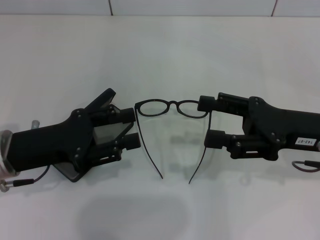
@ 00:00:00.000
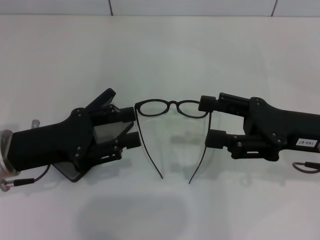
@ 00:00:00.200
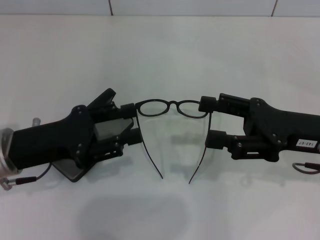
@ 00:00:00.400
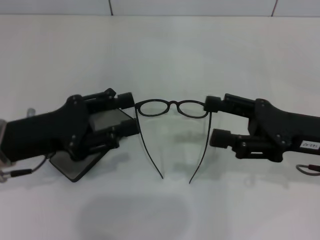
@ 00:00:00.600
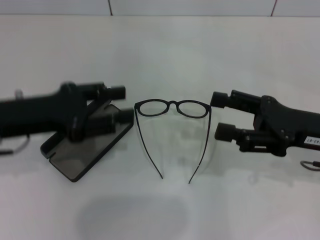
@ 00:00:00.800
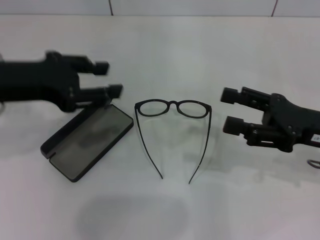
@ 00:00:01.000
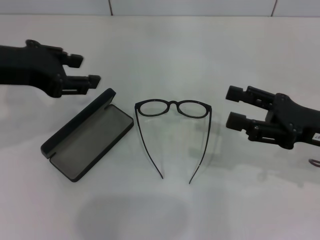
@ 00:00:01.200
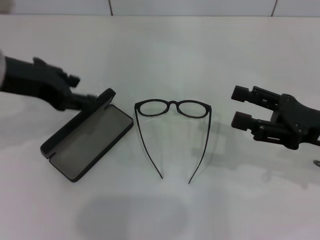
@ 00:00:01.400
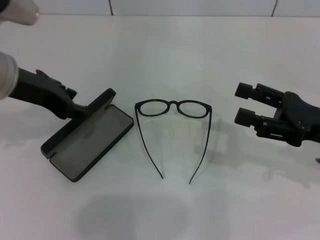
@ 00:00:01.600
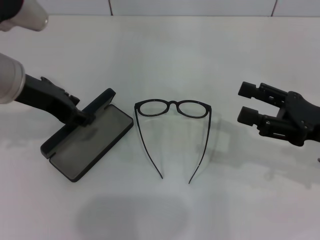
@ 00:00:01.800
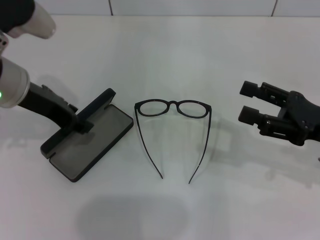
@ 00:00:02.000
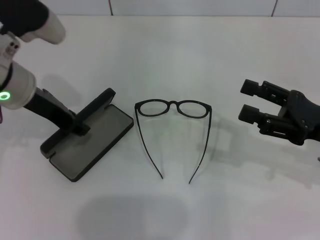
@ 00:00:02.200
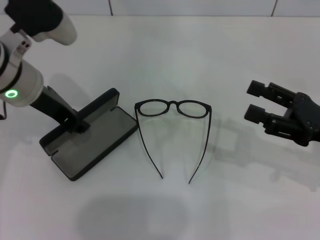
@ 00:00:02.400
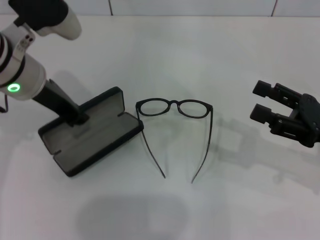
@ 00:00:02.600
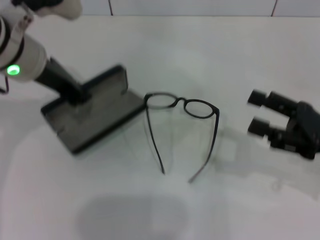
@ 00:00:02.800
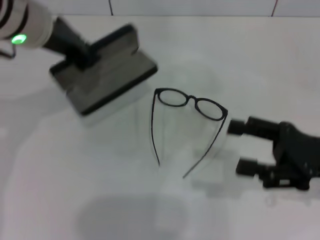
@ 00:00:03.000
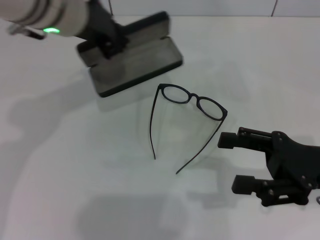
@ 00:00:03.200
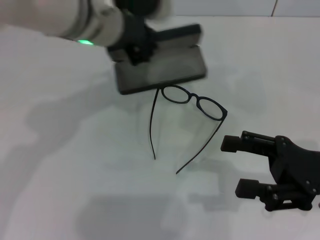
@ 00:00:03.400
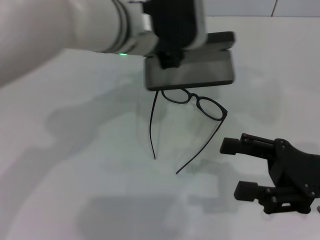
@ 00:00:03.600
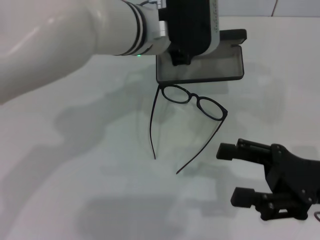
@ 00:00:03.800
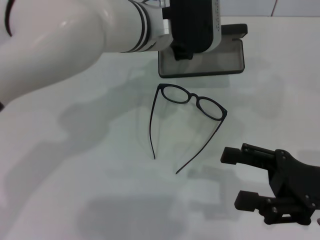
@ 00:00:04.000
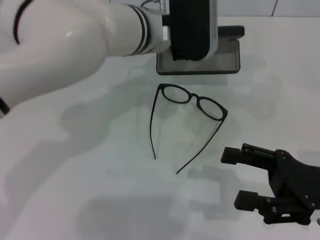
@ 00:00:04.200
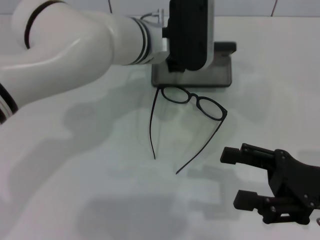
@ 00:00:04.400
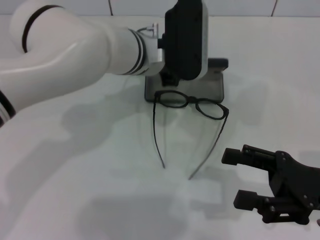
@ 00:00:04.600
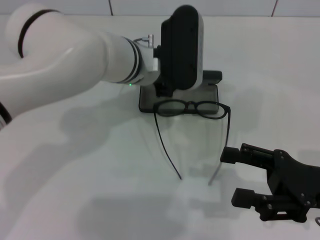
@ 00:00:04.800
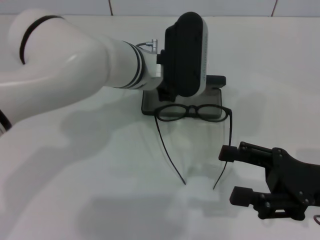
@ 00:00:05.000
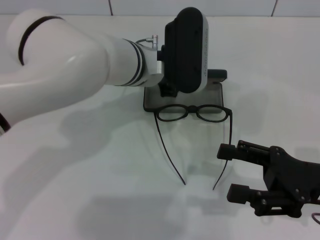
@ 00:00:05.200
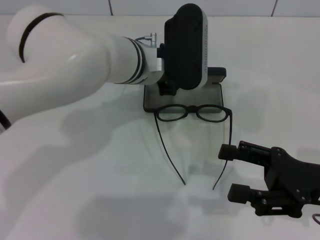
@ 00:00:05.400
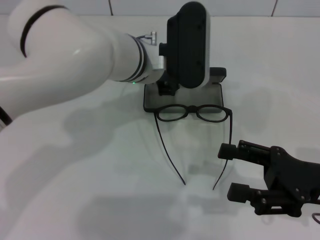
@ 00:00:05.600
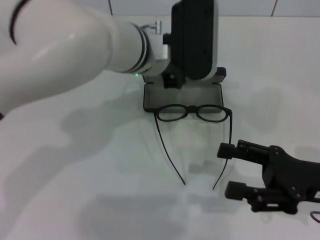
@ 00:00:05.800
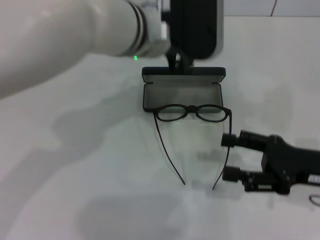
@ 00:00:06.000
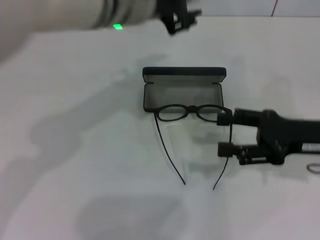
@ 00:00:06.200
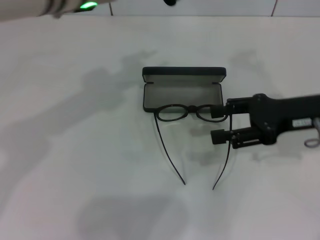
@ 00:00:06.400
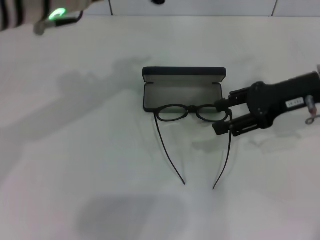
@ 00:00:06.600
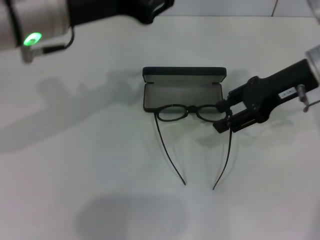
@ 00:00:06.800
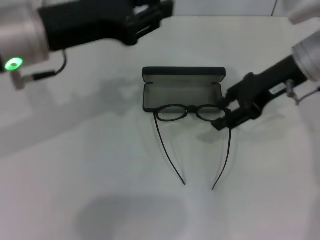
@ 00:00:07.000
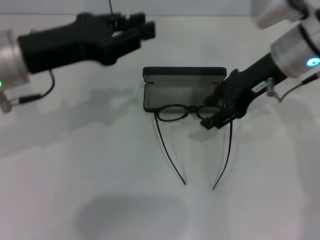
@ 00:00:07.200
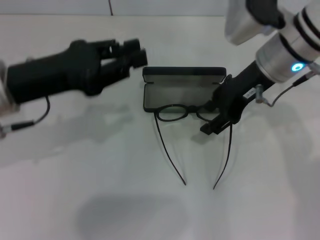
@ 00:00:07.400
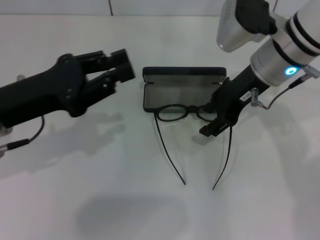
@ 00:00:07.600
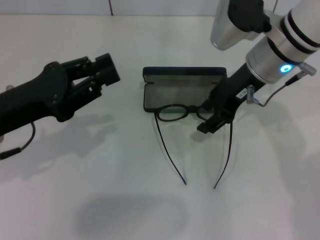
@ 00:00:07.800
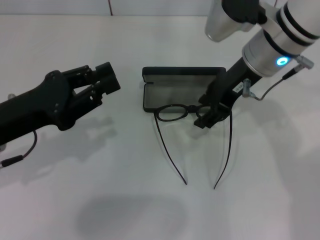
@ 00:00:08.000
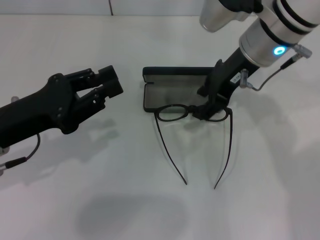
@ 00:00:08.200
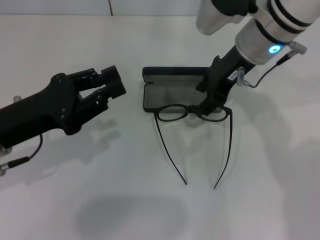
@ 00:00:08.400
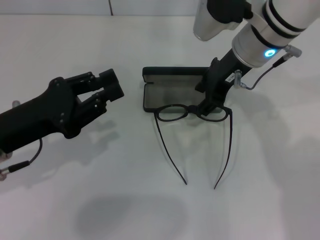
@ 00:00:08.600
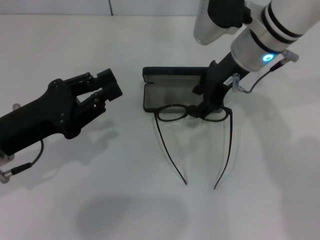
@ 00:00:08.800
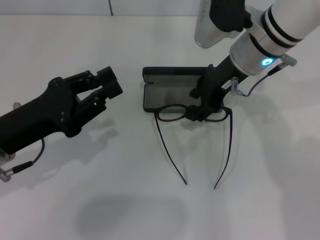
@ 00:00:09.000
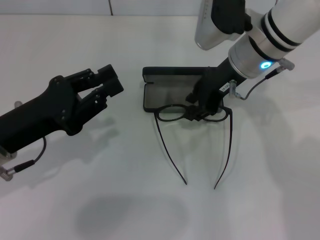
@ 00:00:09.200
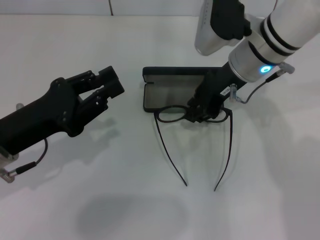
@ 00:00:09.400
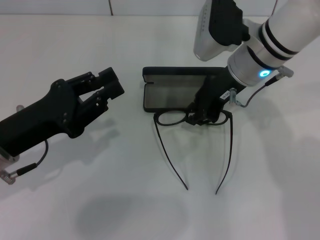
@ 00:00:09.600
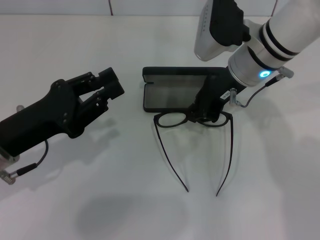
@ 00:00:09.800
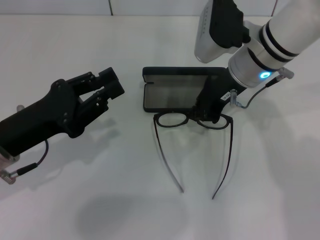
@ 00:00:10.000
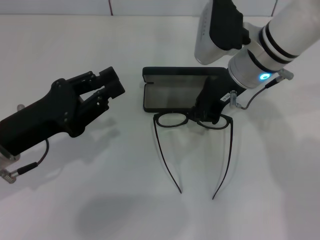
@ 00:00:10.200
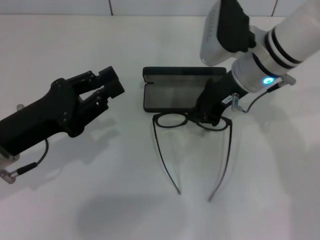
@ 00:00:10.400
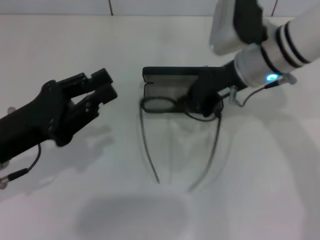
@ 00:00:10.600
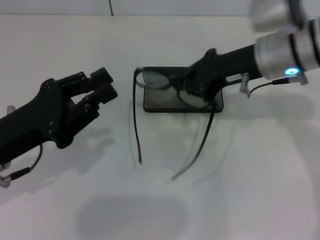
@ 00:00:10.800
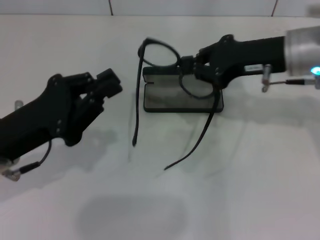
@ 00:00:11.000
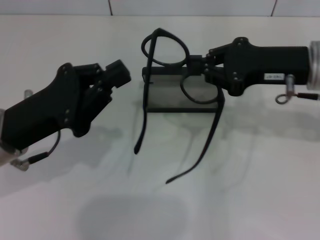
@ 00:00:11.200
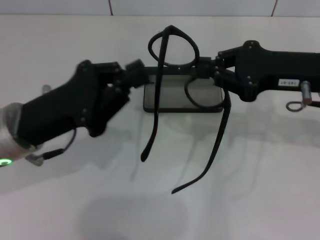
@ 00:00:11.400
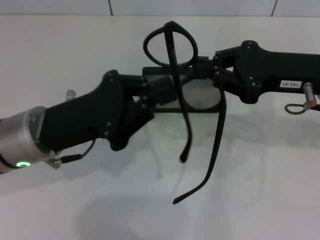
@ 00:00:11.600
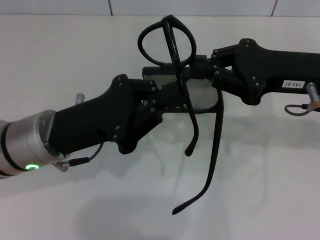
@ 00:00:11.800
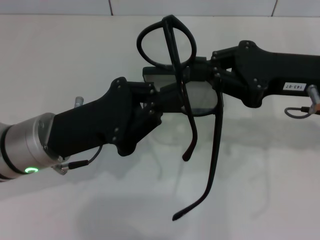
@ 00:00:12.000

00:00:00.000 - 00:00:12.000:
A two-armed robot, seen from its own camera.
Step, 00:00:00.000 - 00:00:02.600: Grab the glasses case with your left hand.
Step, 00:00:02.800 - 00:00:05.600: Place the glasses case in the center of the table with your left hand.
Step, 00:00:05.800 - 00:00:10.200: Grab the eyeglass frame with your right hand.
00:00:00.000 - 00:00:01.600: The left gripper moves upward and forward, approximately 15 cm.
00:00:01.600 - 00:00:03.000: The left gripper moves roughly 5 cm, and closes up.
00:00:03.000 - 00:00:04.400: The left gripper moves to the right and downward, some 15 cm.
00:00:04.400 - 00:00:06.000: The left gripper shifts roughly 5 cm upward.
00:00:06.000 - 00:00:07.600: The left gripper is displaced to the left and backward by approximately 20 cm; the right gripper shifts about 20 cm forward, to the left and upward.
00:00:09.000 - 00:00:10.400: The right gripper closes its fingers.
00:00:10.400 - 00:00:12.000: The right gripper moves to the right and backward, about 15 cm. The left gripper is displaced to the right by roughly 5 cm.

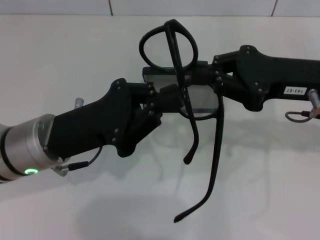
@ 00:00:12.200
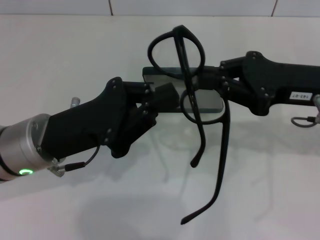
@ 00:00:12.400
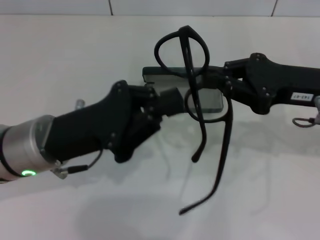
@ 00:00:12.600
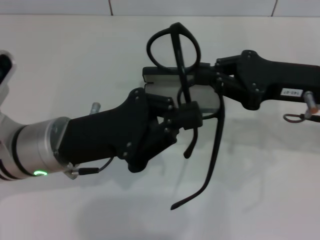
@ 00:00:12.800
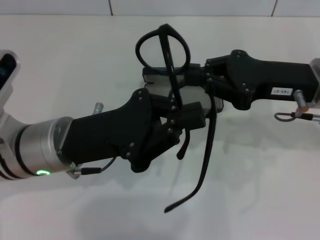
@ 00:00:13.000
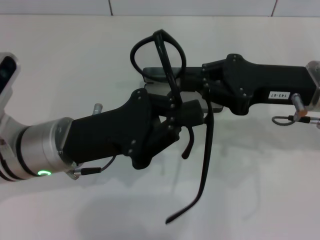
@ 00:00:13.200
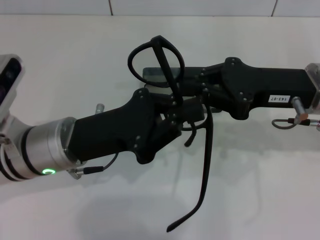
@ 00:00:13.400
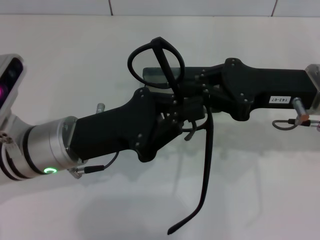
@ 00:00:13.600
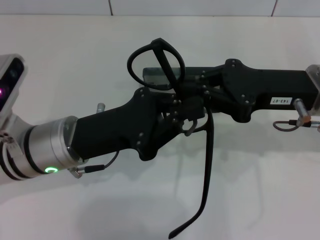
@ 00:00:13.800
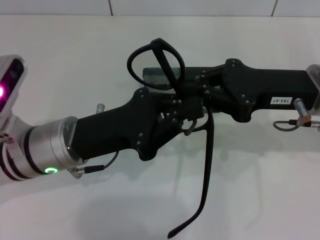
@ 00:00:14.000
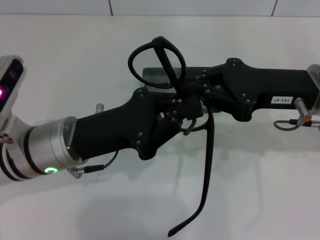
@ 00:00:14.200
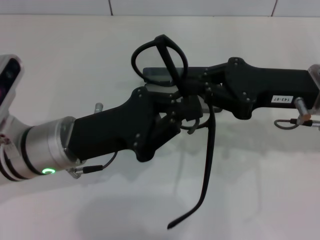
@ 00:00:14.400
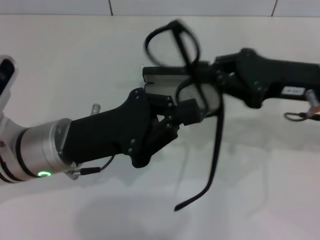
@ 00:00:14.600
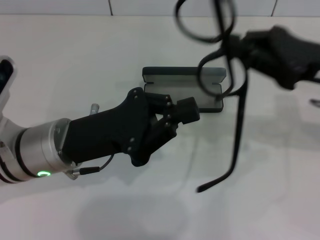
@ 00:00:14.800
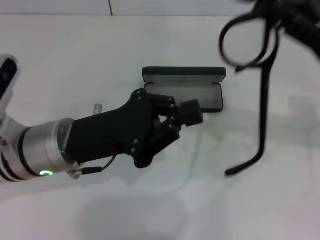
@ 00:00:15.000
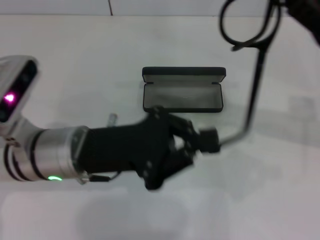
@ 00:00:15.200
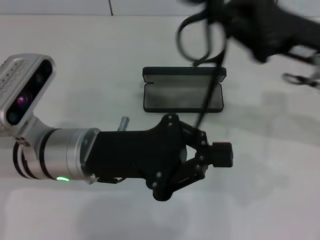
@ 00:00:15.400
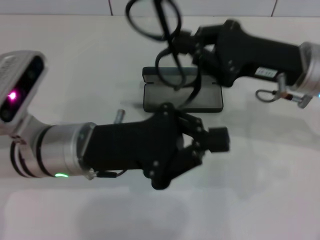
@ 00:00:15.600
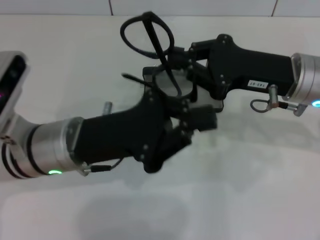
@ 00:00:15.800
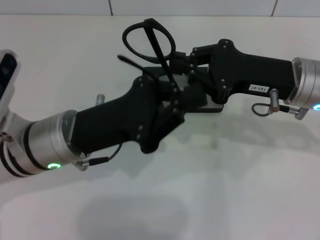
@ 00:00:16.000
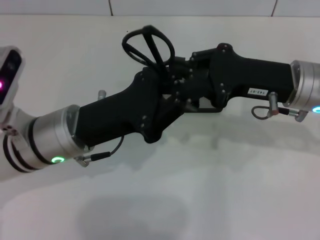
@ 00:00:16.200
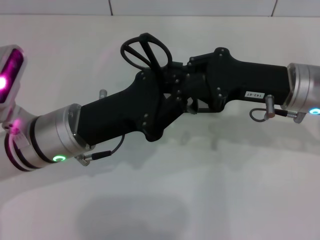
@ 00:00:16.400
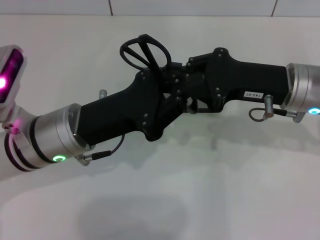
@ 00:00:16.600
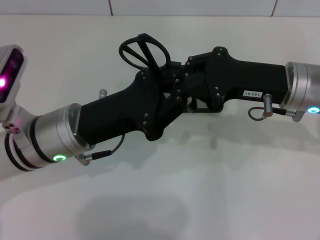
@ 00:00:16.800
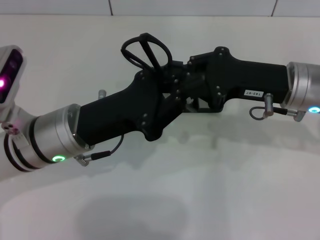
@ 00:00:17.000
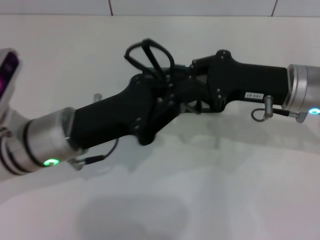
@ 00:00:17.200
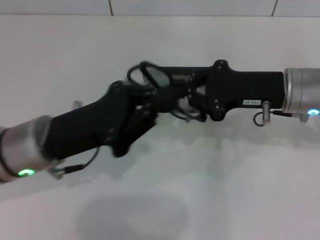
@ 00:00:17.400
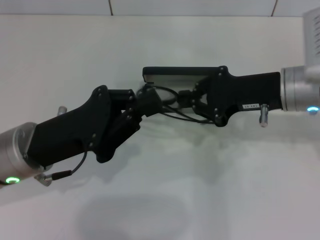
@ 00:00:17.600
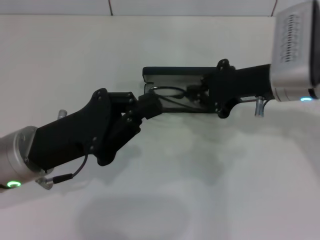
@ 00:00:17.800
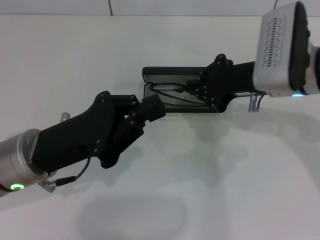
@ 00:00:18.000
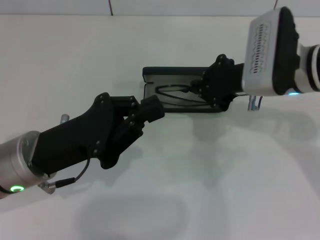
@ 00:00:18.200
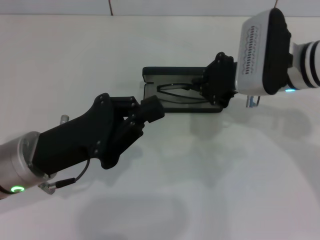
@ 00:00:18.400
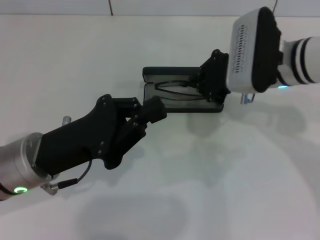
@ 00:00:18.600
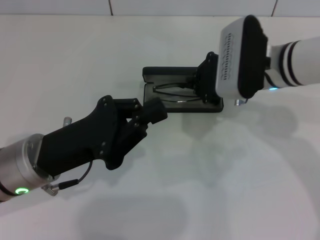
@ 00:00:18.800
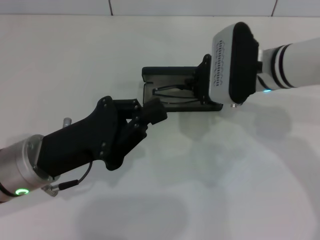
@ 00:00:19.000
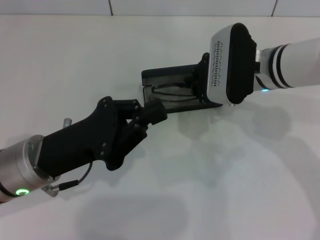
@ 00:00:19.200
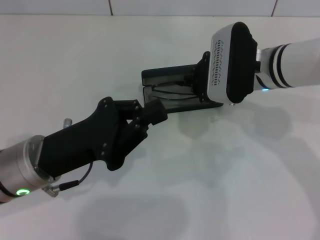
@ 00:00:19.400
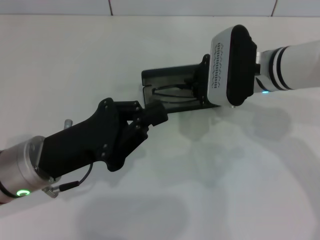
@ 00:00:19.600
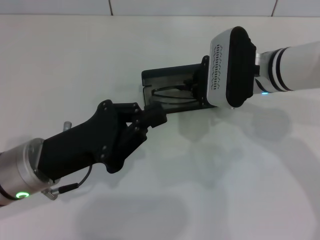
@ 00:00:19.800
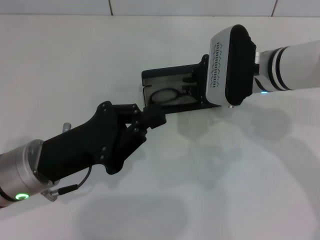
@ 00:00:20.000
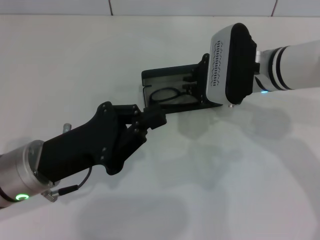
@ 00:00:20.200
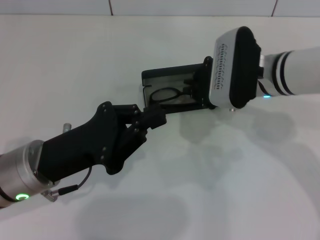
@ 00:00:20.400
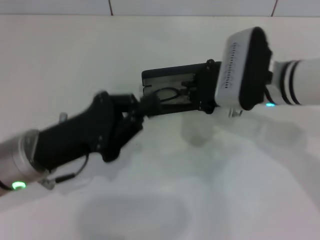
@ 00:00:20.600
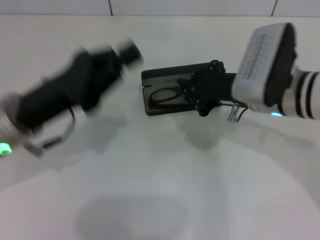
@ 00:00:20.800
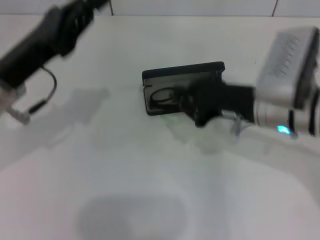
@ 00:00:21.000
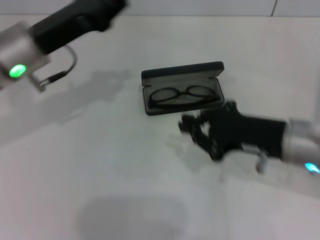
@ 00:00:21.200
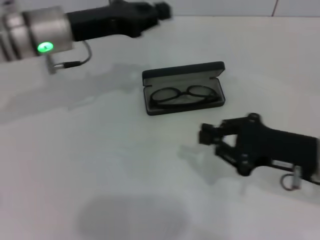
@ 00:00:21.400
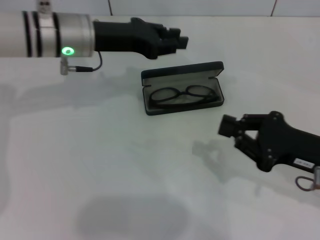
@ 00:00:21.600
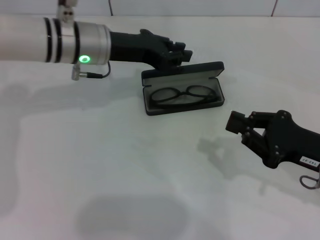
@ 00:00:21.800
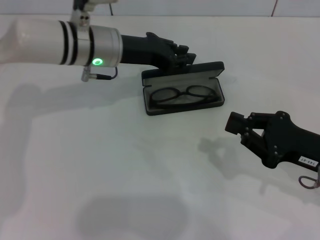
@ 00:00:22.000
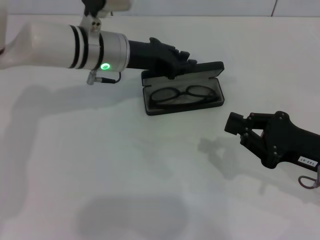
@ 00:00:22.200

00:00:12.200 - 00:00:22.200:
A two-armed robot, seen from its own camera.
Step, 00:00:12.200 - 00:00:17.000: Lift the glasses with your right hand.
Step, 00:00:17.200 - 00:00:19.800: Put the glasses into the case with your right hand.
00:00:13.600 - 00:00:15.000: The right gripper is displaced to the right by about 5 cm.
00:00:15.000 - 00:00:16.400: The right gripper goes about 10 cm to the left and downward.
00:00:16.400 - 00:00:18.000: The left gripper changes place by some 5 cm.
00:00:18.000 - 00:00:19.400: The right gripper ends up some 5 cm from where it was.
00:00:19.400 - 00:00:20.800: The right gripper ends up about 5 cm from where it was. The left gripper moves roughly 5 cm.
00:00:20.800 - 00:00:22.200: The left gripper heads forward and to the right, covering roughly 15 cm, and opens up. Meanwhile the right gripper is displaced to the right, backward and downward by approximately 15 cm.
